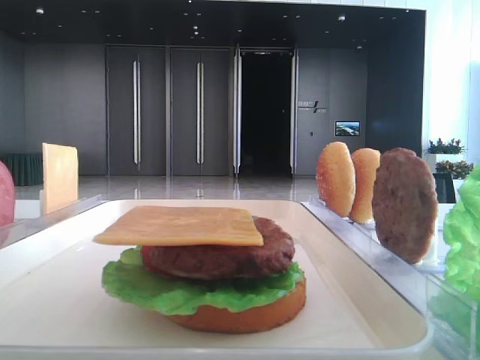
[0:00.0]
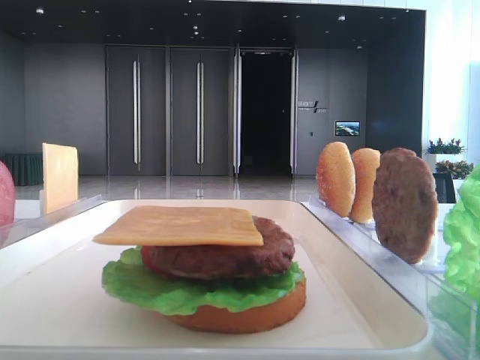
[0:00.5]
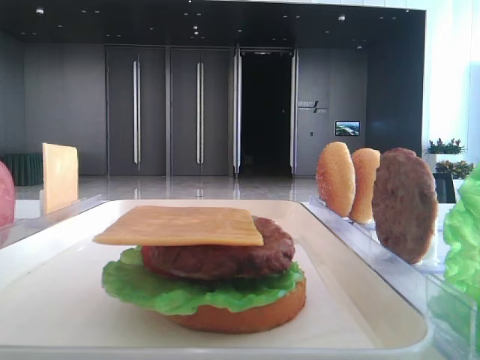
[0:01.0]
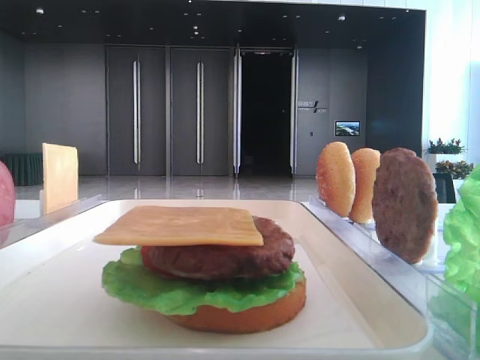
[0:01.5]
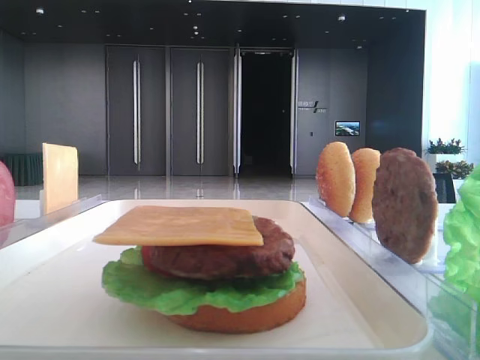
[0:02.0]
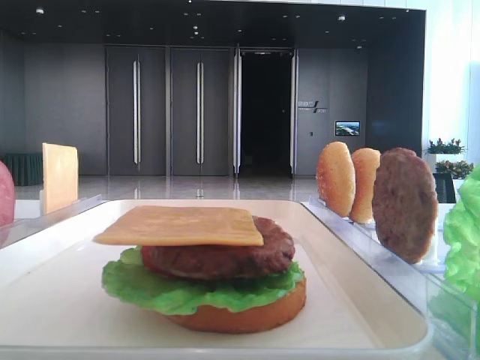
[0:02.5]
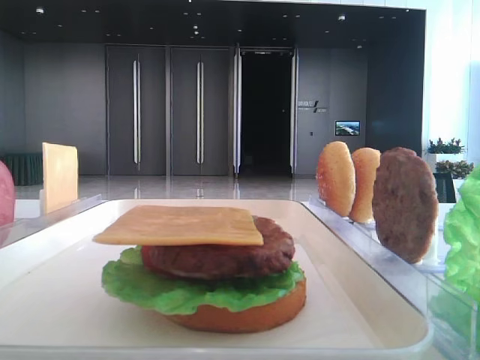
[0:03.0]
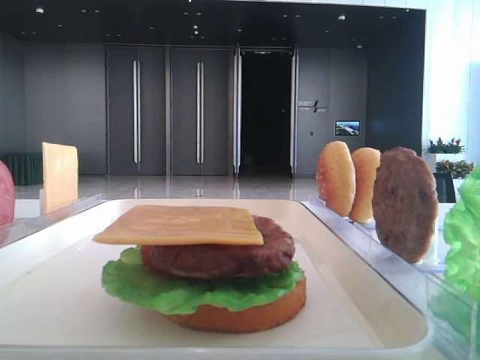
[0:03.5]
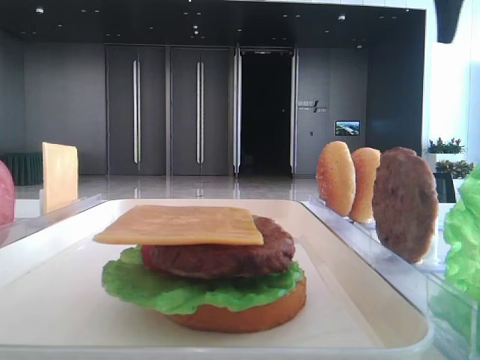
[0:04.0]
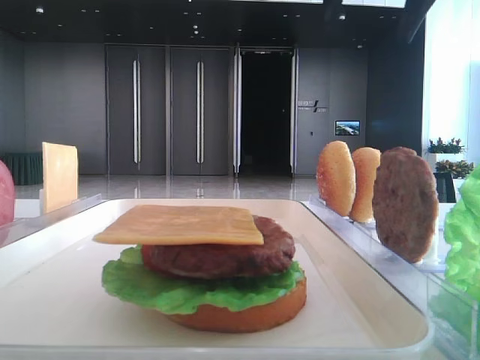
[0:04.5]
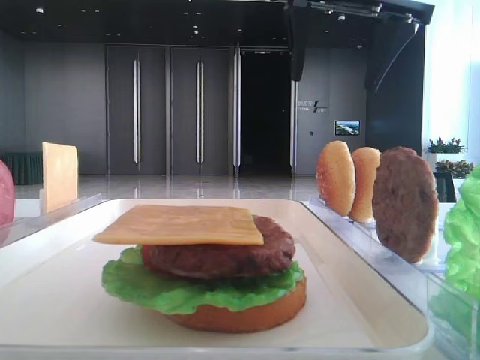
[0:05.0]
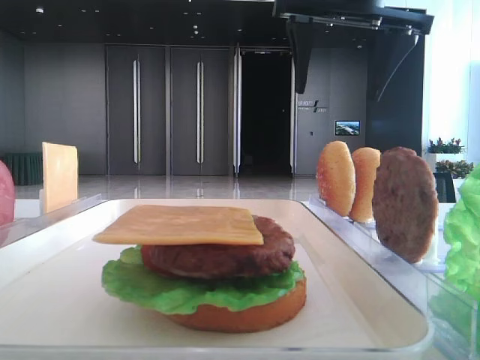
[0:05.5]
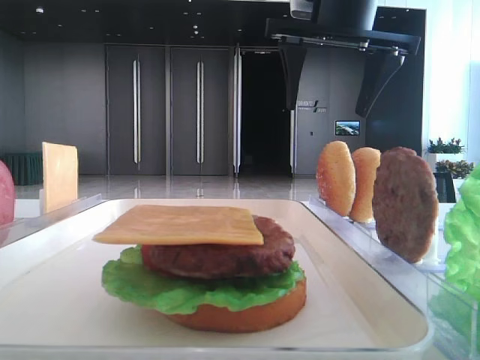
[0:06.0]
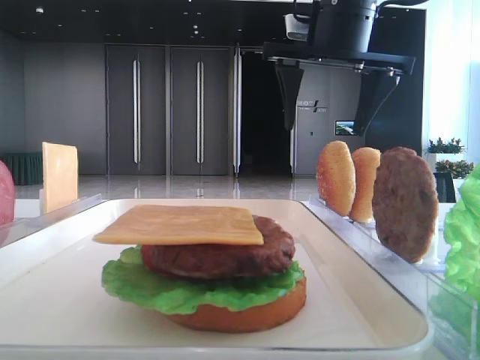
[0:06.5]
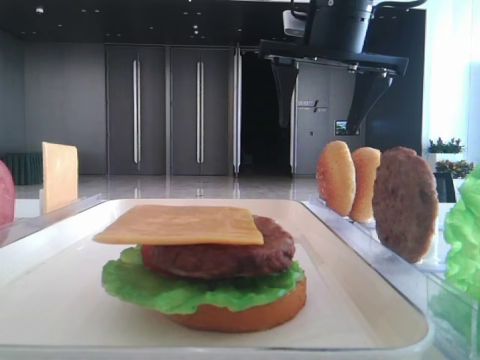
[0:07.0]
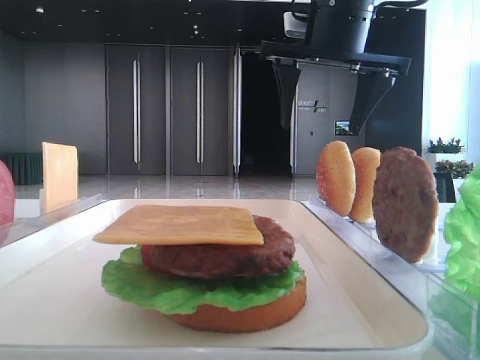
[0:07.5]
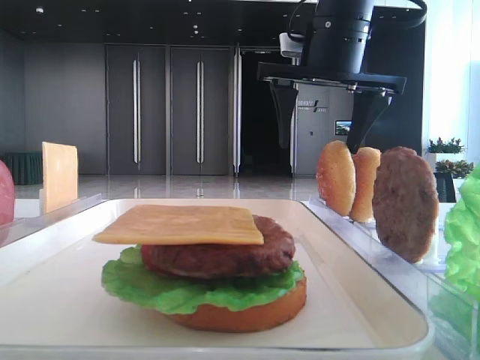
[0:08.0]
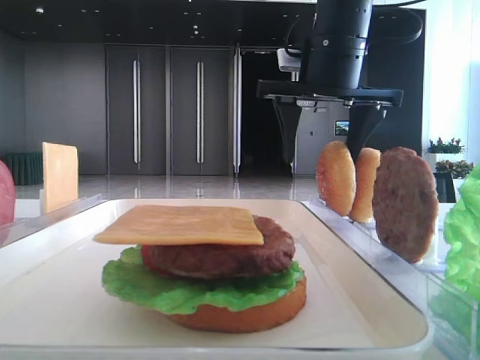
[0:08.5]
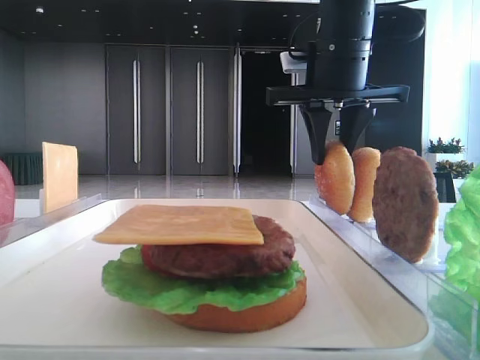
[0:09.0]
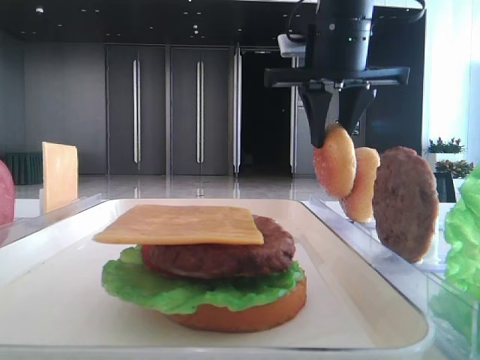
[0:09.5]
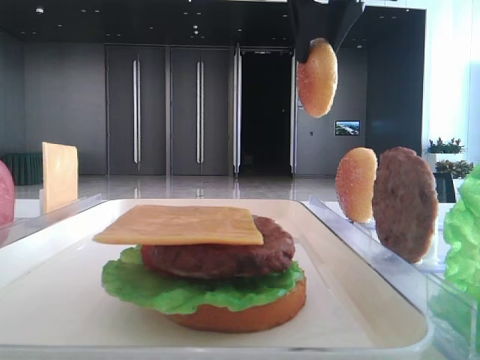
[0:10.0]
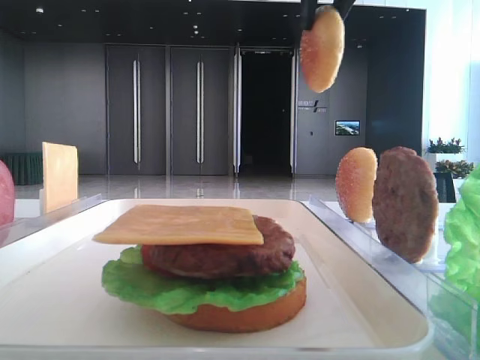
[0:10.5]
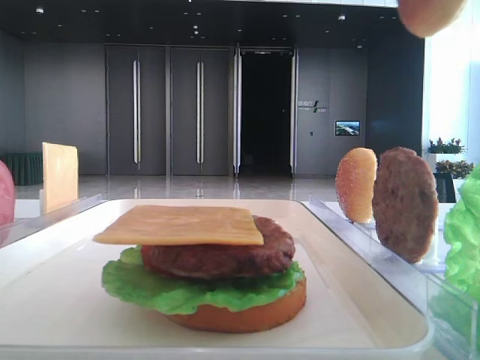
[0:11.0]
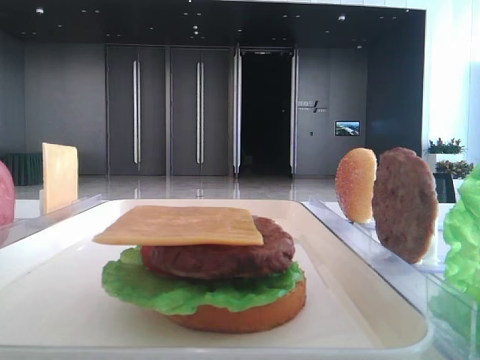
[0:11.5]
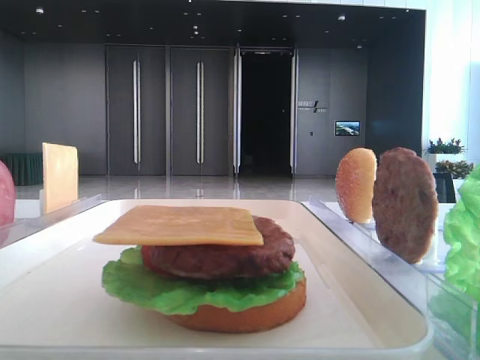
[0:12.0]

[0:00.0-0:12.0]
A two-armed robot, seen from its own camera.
Step, 0:00.0 to 0:08.5: Pick up the top bread slice with the right hand.
0:02.0 to 0:04.0: The right gripper shifts some 35 cm forward.
0:04.0 to 0:06.0: The right gripper moves to the left, downward and forward, approximately 15 cm.
0:06.0 to 0:08.0: The grippers make only small movements.
0:08.0 to 0:10.0: The right gripper travels upward by approximately 10 cm, and closes up.
0:10.0 to 0:12.0: The right gripper travels backward and to the right by roughly 30 cm.

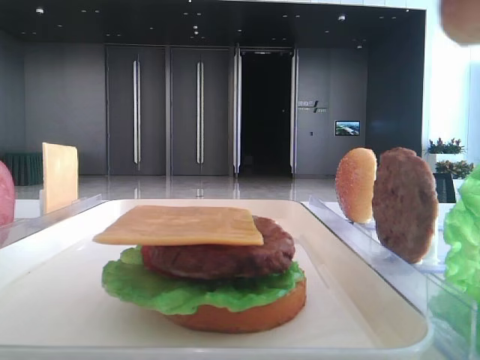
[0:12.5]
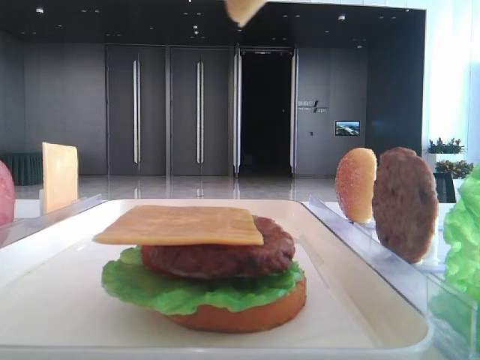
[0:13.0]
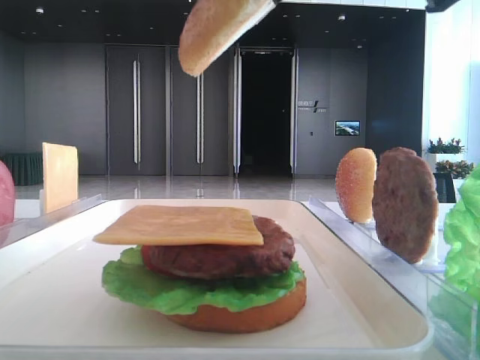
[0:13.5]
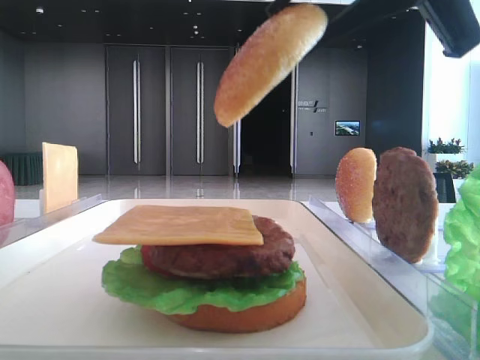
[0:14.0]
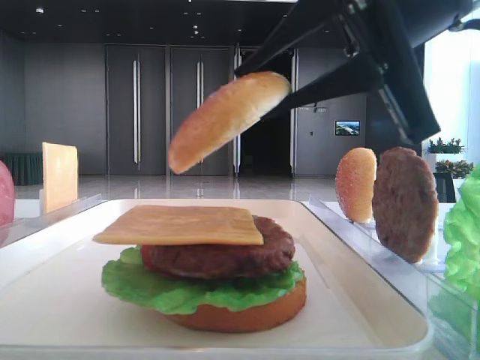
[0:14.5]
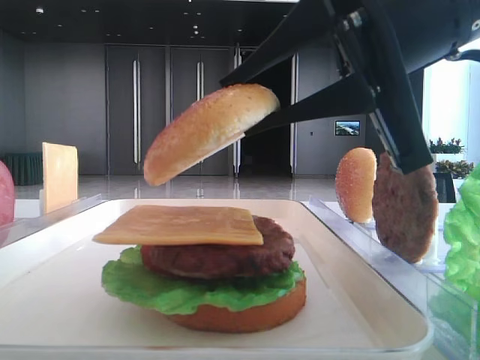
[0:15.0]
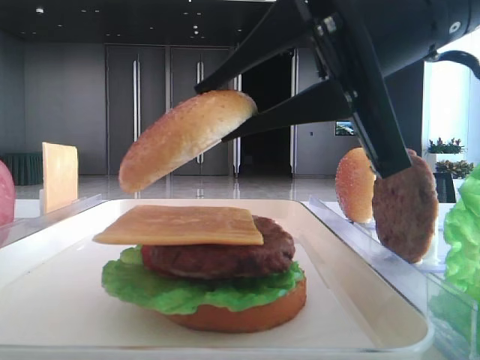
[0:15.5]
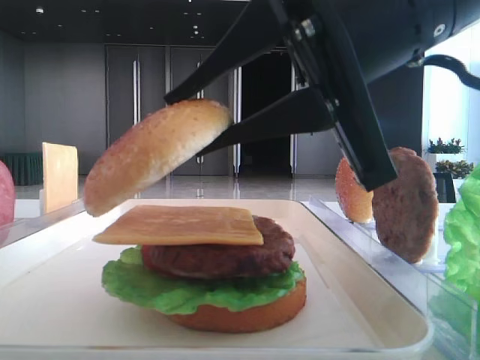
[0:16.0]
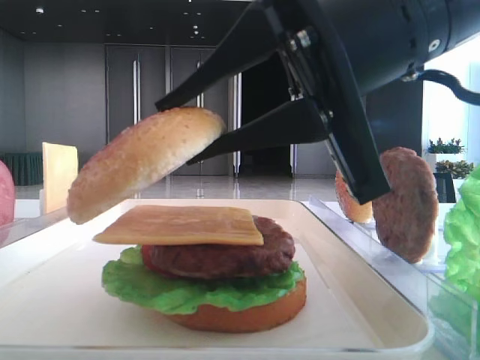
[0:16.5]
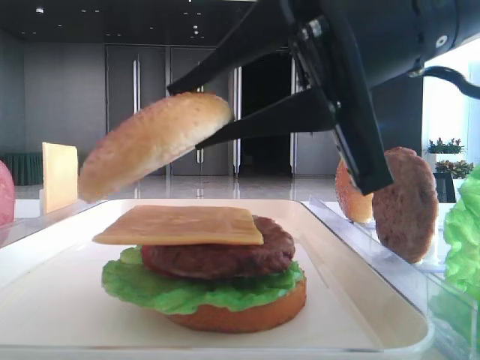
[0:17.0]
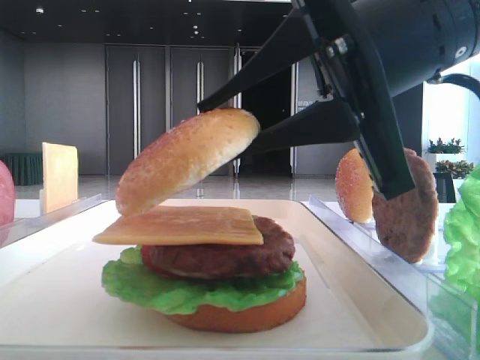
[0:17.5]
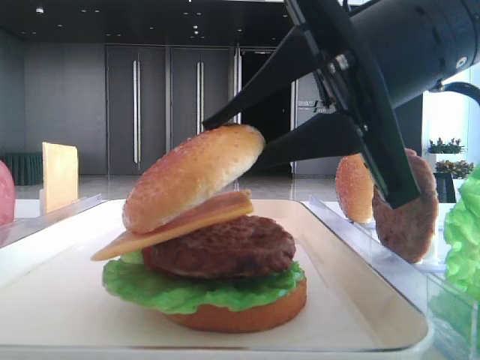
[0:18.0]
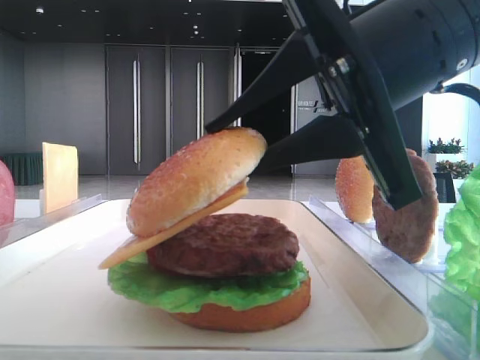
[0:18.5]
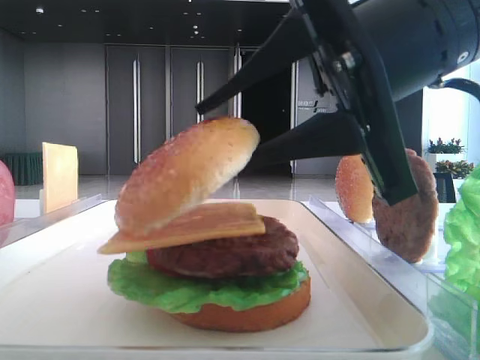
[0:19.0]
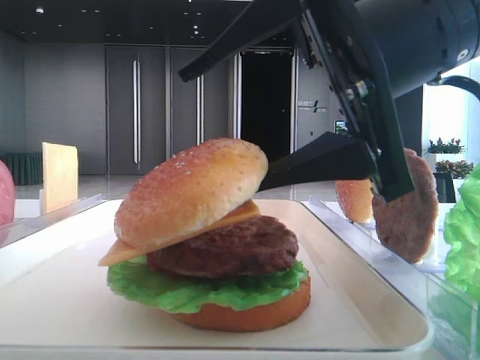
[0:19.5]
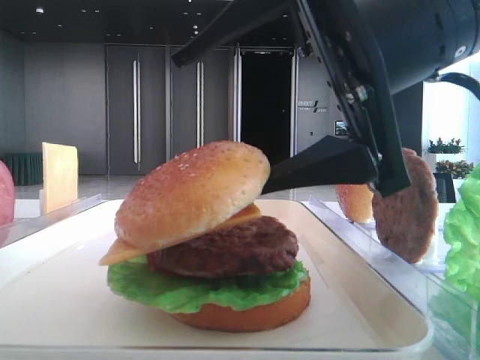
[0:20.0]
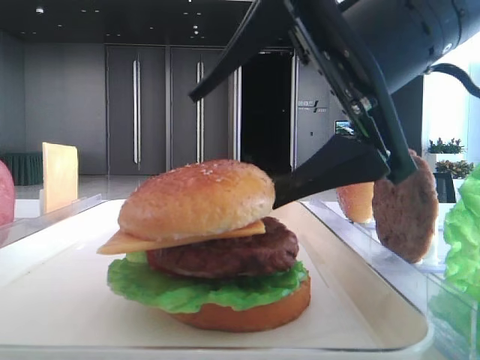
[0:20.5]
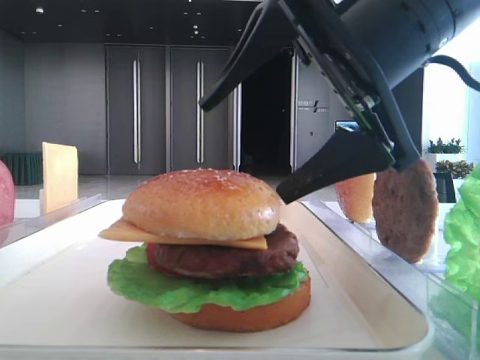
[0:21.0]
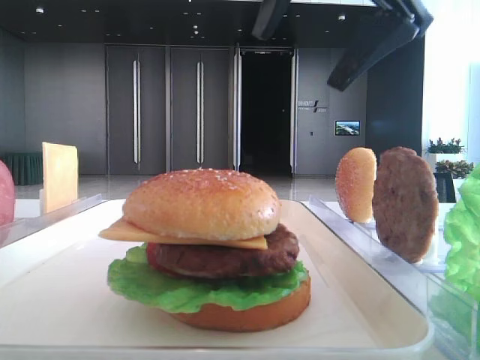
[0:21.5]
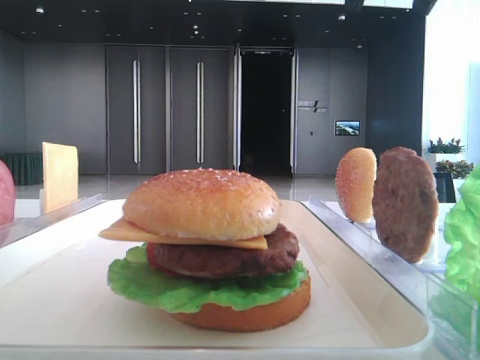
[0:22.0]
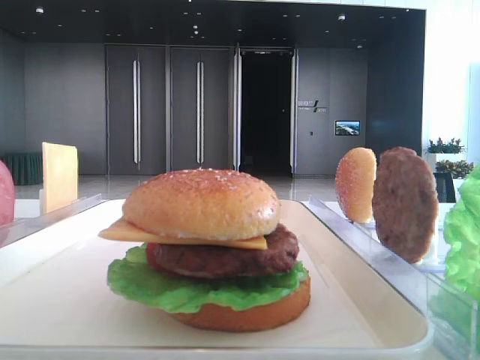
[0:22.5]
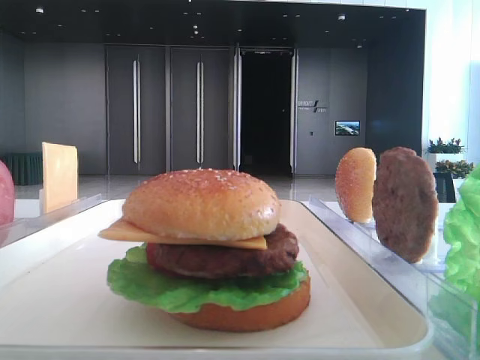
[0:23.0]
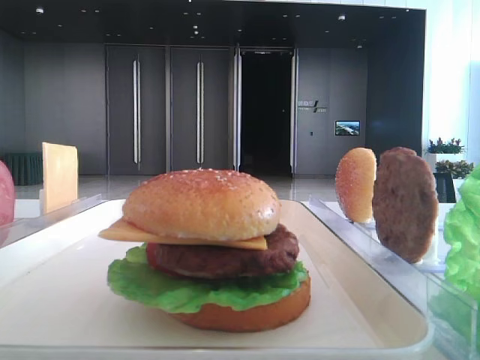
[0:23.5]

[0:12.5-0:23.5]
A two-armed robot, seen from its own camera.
Step, 0:12.5 to 0:20.5: Place the top bread slice on the cheese with the right hand.
0:12.5 to 0:14.5: The right gripper travels downward, forward and to the left by roughly 20 cm.
0:14.5 to 0:18.0: The grippers make only small movements.
0:18.0 to 0:20.0: The right gripper opens up.
0:20.0 to 0:21.5: The right gripper travels upward and forward by about 10 cm.
0:21.5 to 0:23.5: The right gripper moves to the right and upward, some 25 cm.

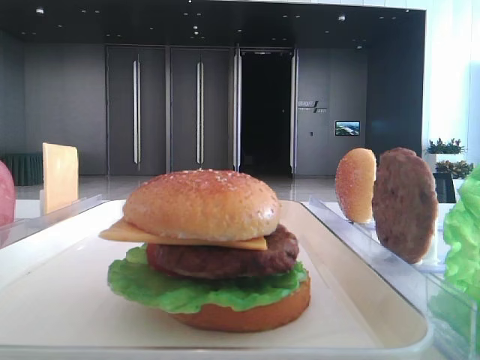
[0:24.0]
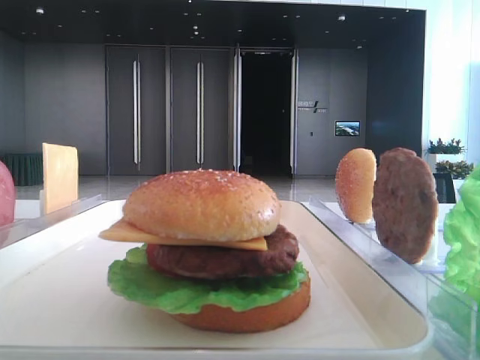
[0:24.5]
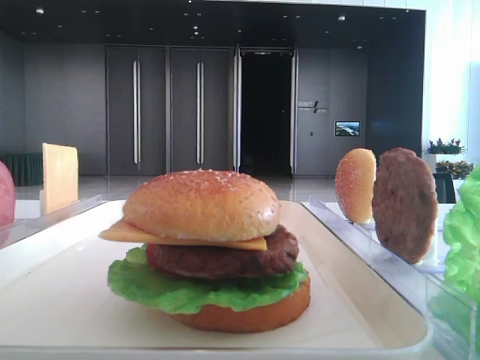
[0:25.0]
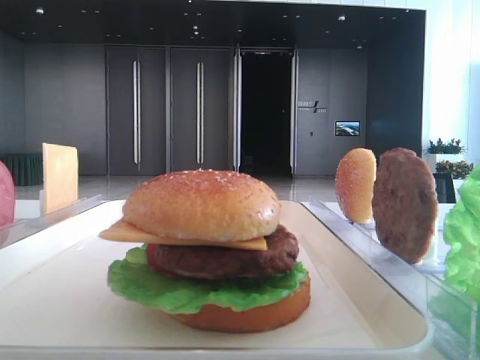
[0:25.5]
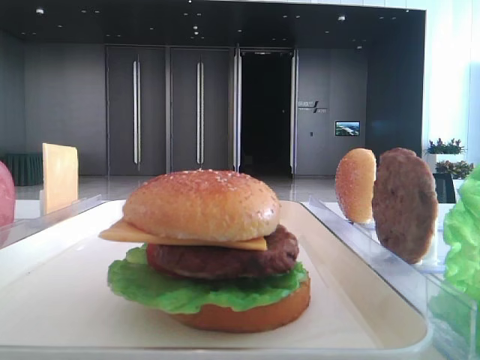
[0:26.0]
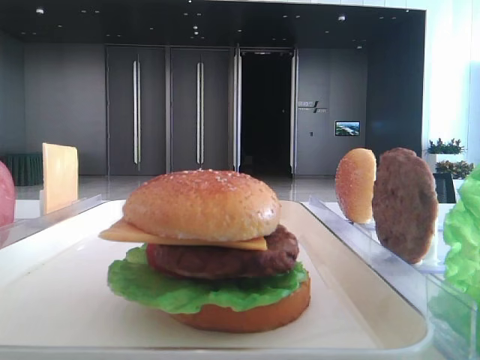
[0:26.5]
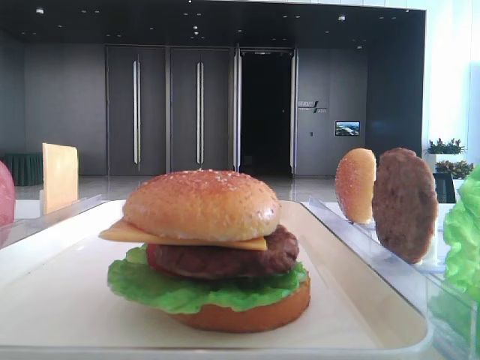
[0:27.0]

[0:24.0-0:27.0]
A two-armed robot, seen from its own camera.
0:25.5 to 0:27.0: Neither gripper changes place.
